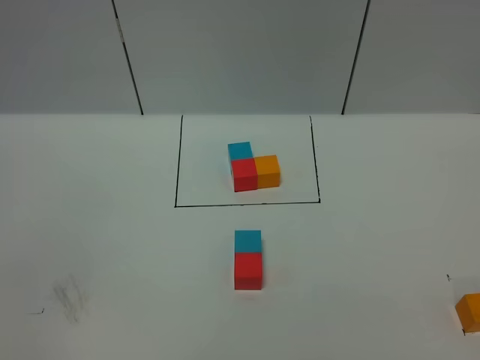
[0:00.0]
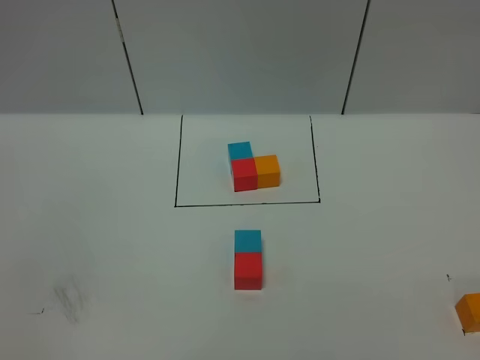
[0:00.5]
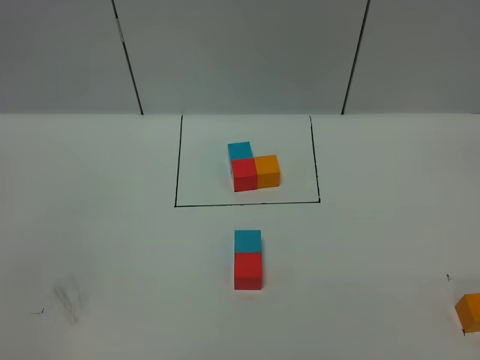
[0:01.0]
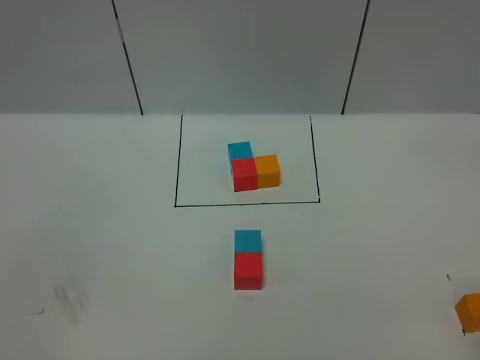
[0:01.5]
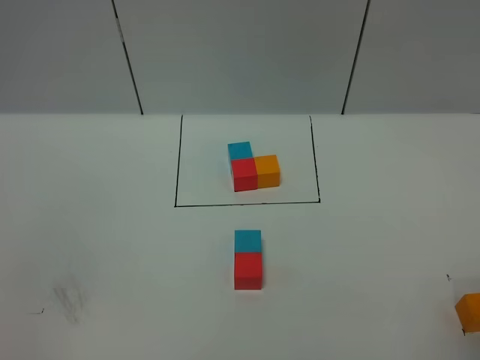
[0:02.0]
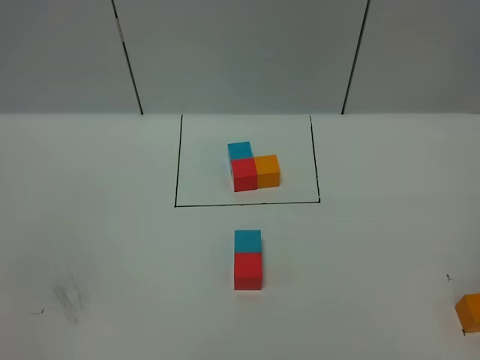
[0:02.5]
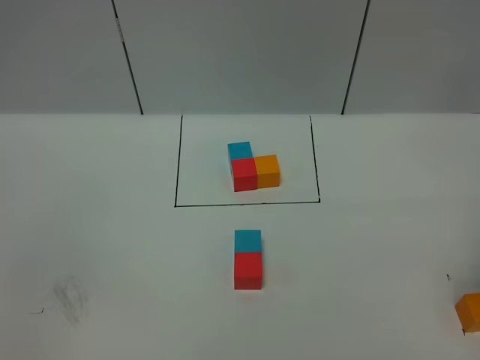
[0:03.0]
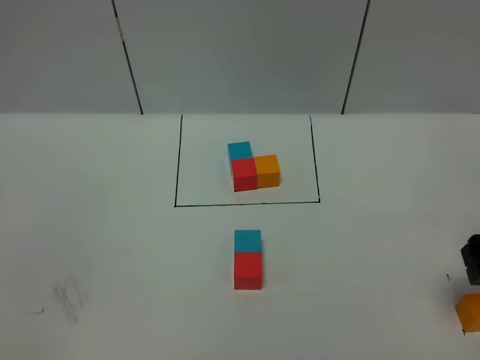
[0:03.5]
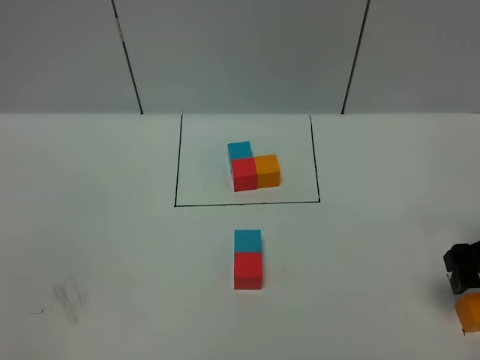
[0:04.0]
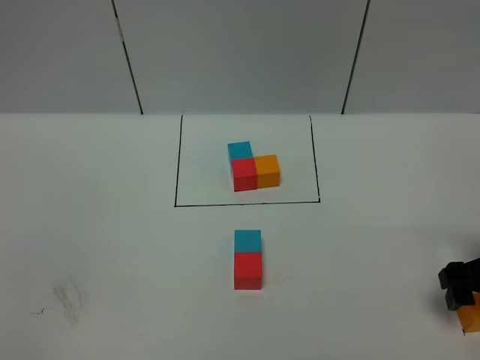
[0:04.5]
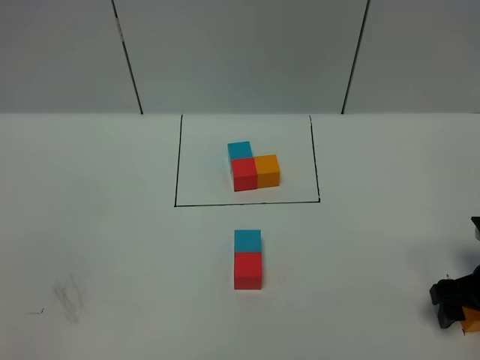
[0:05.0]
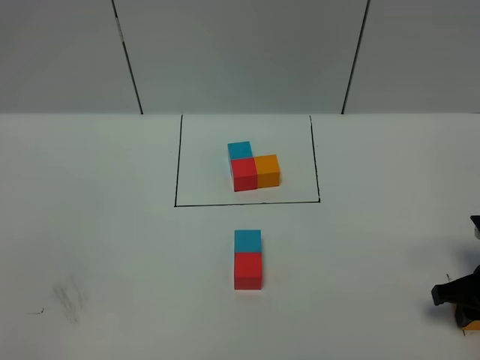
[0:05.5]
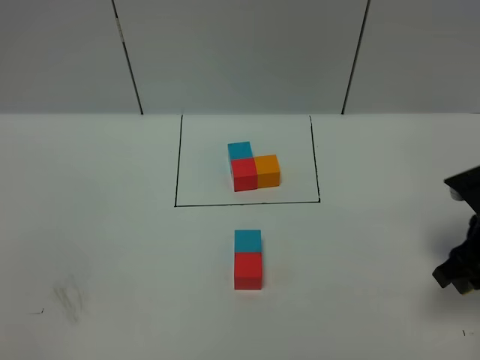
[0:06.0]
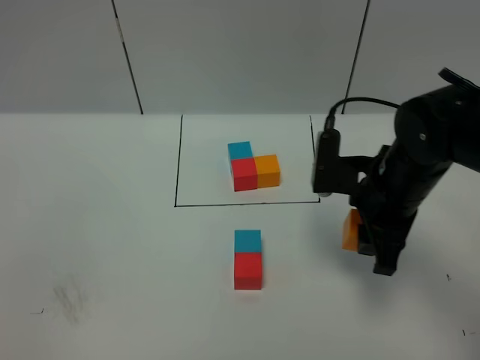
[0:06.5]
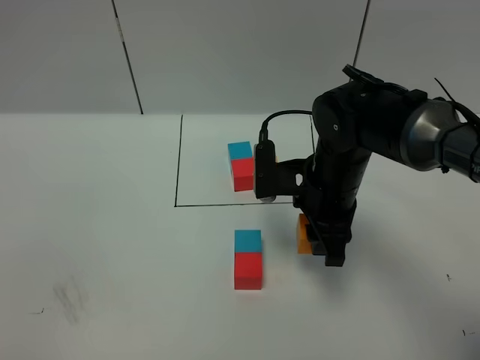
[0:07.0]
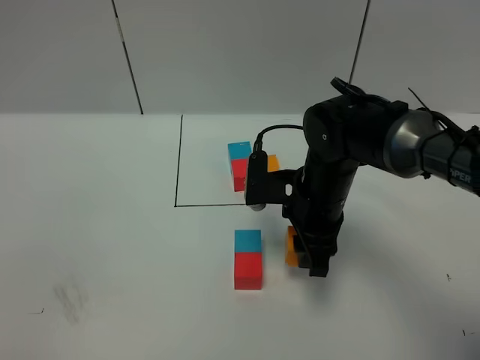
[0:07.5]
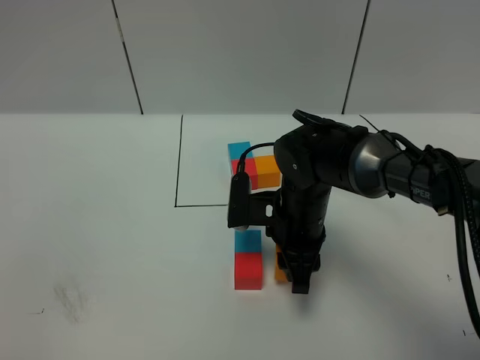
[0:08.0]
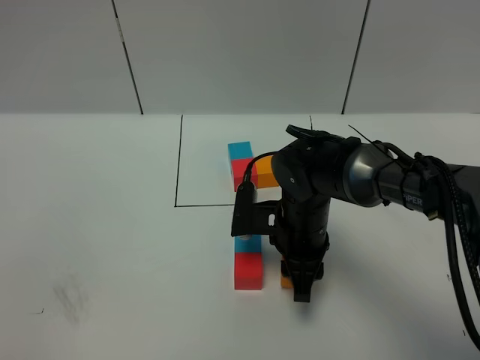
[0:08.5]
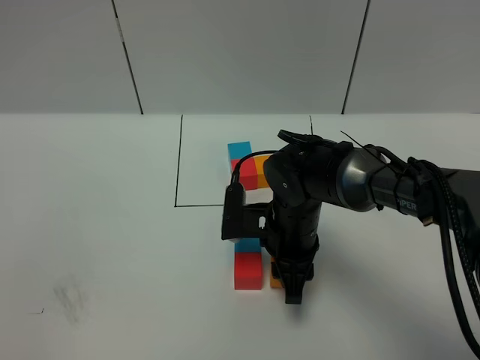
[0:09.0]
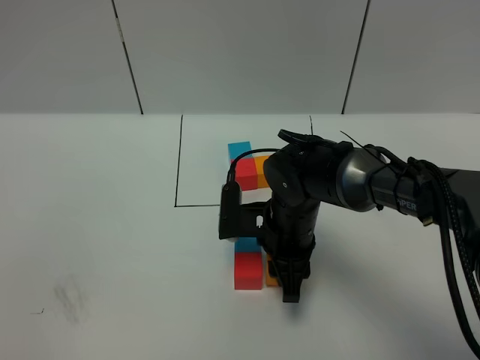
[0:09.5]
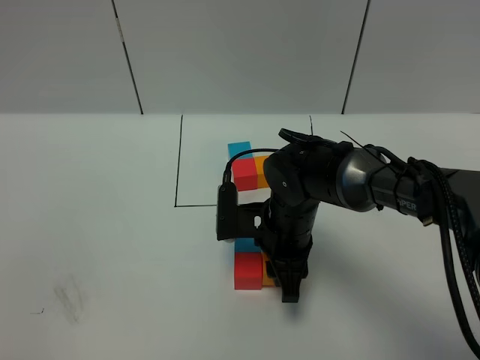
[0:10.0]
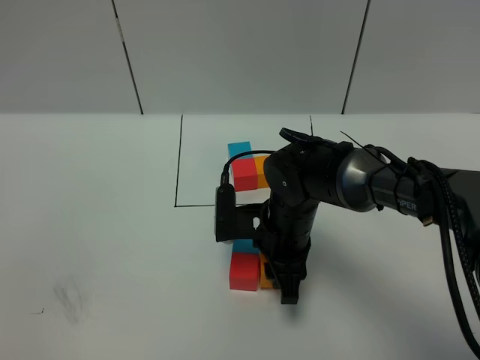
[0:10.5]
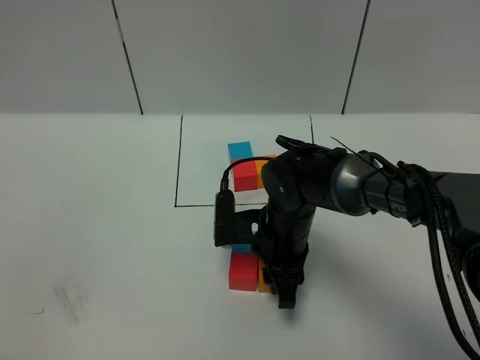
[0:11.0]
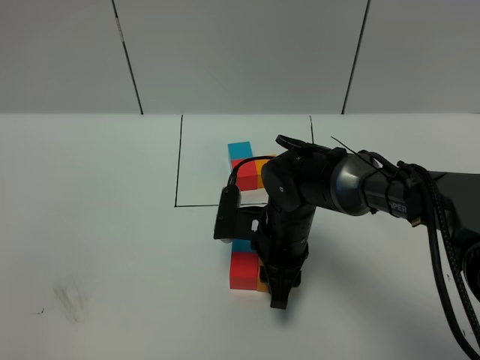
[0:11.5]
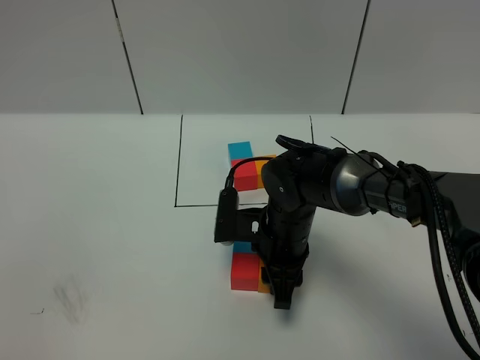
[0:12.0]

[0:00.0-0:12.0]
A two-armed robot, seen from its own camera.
Task of the whole recording: According to the building block template in front, assemble the scattered blocks together.
0:02.0 to 0:04.0: The right gripper moves downward and forward, some 30 cm.
0:04.0 to 0:06.0: The right gripper goes downward and returns, roughly 5 cm each way, and closes up.
0:06.0 to 0:08.0: The right gripper travels to the left by approximately 20 cm.
0:08.0 to 0:12.0: The grippers stay close to where they were, moving slightly.

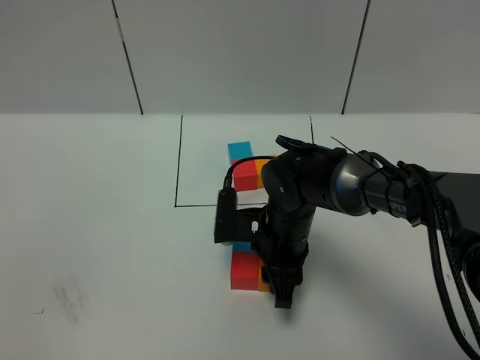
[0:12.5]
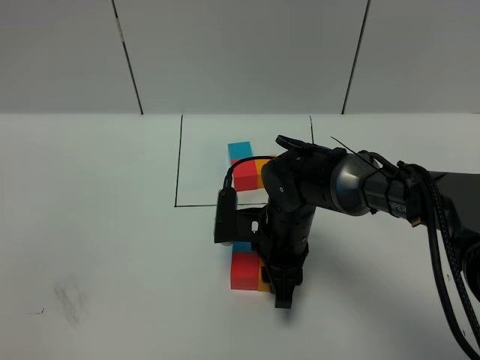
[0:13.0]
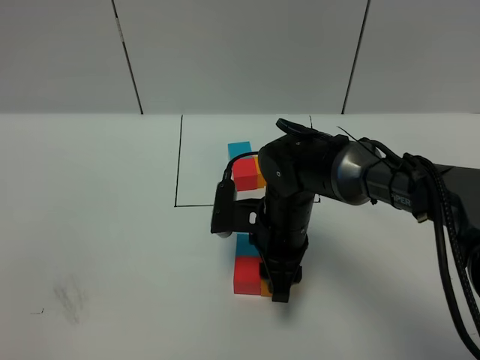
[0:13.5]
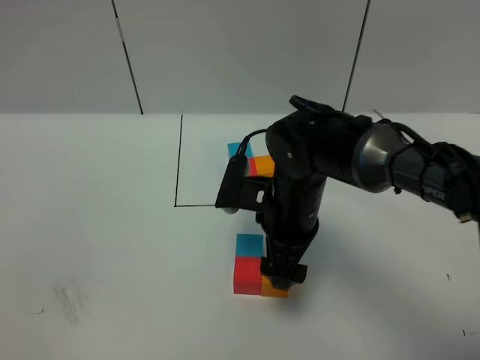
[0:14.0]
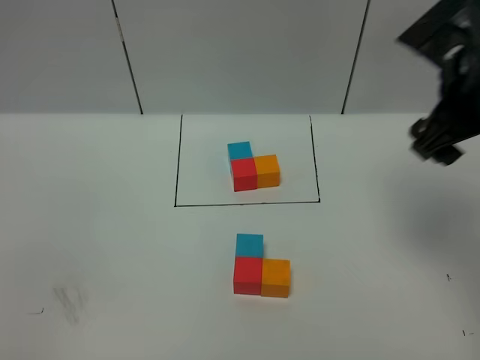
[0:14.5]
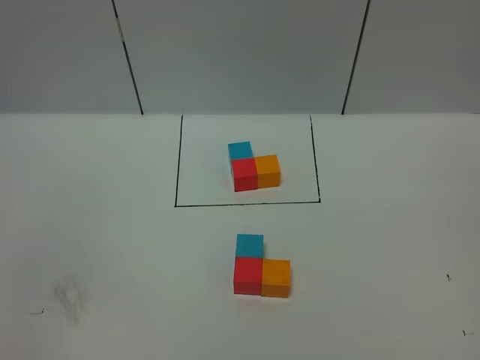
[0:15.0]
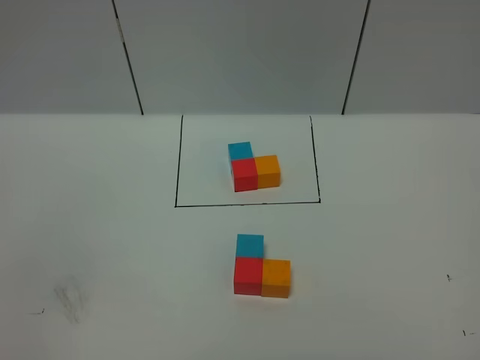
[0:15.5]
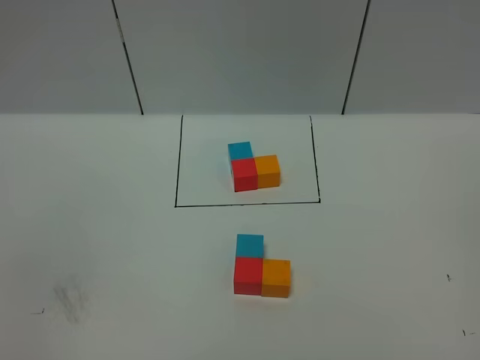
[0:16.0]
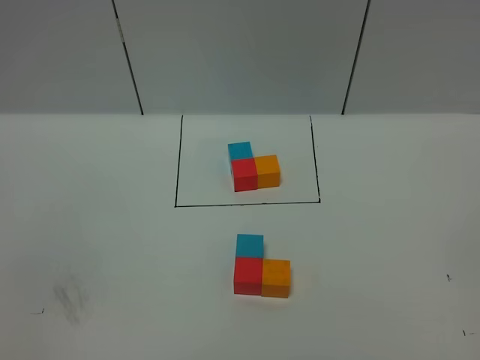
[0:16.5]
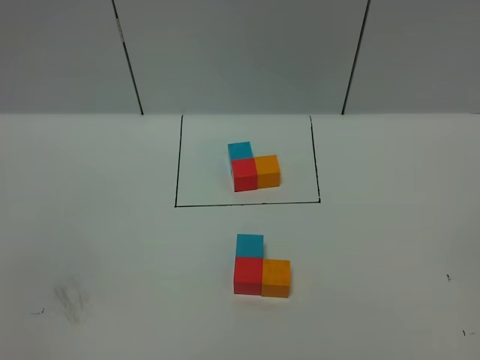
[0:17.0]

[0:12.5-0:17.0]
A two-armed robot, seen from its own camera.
Task of the whole recording: According to the building block template in front, assemble the scattered blocks together.
0:12.5 to 0:14.5: The right gripper goes roughly 30 cm upward and to the right, and opens.
0:14.5 to 0:17.0: The right gripper goes approximately 35 cm backward.

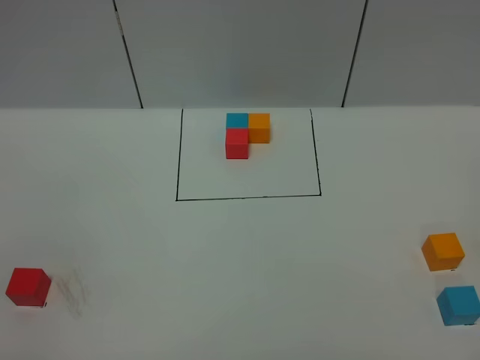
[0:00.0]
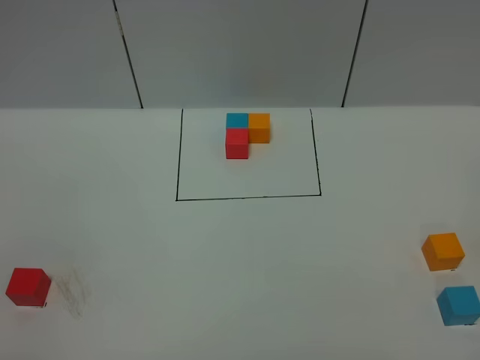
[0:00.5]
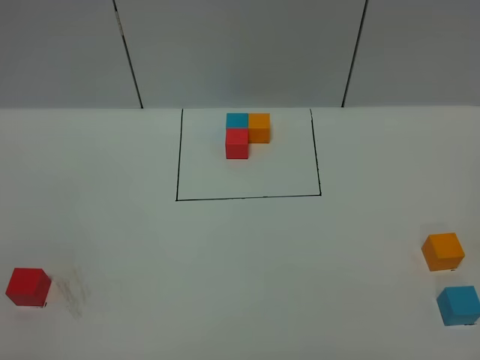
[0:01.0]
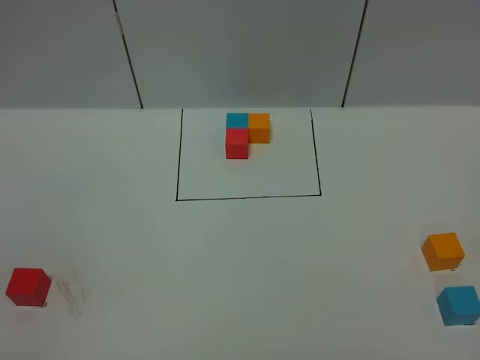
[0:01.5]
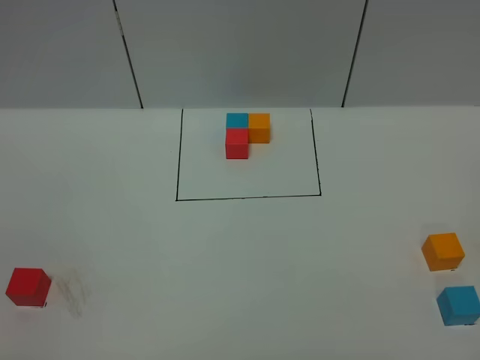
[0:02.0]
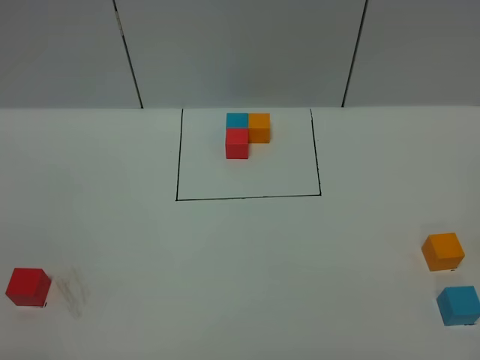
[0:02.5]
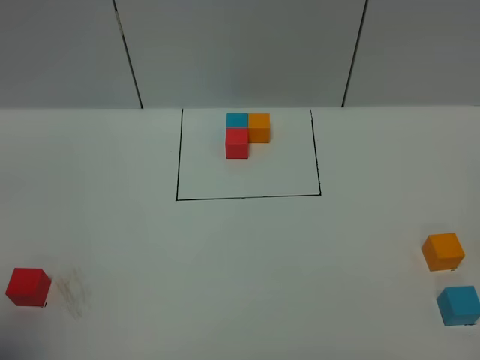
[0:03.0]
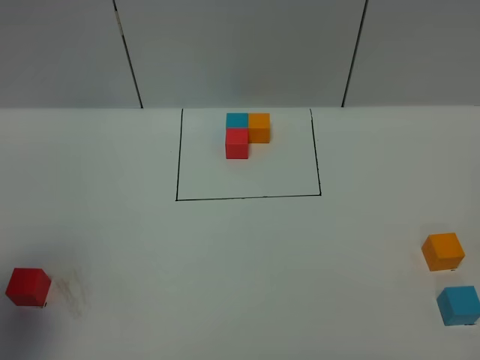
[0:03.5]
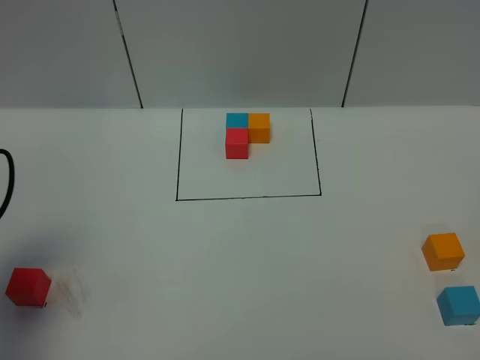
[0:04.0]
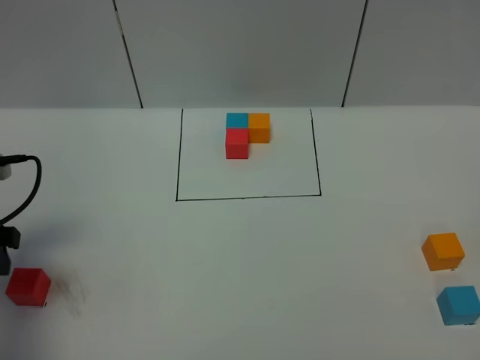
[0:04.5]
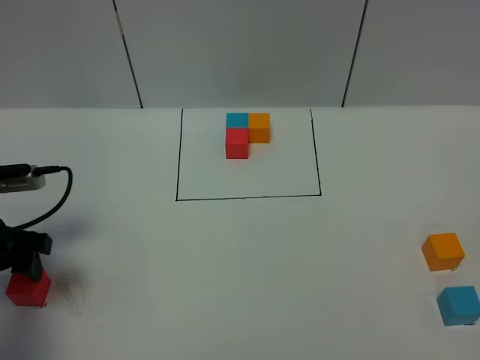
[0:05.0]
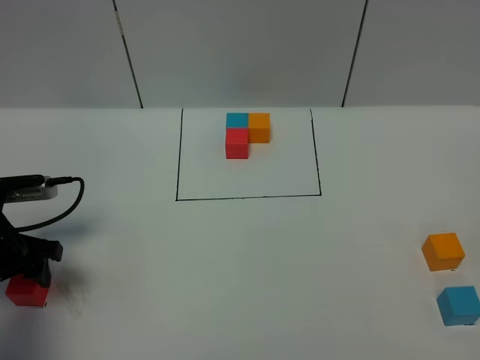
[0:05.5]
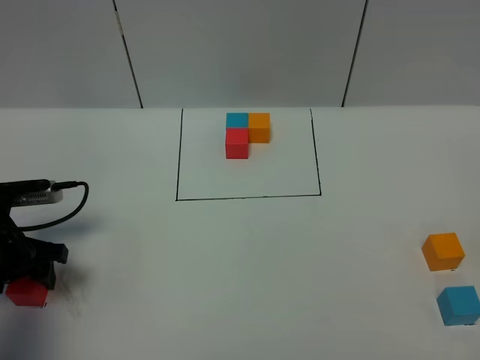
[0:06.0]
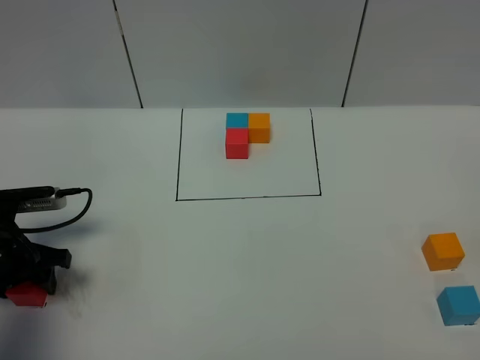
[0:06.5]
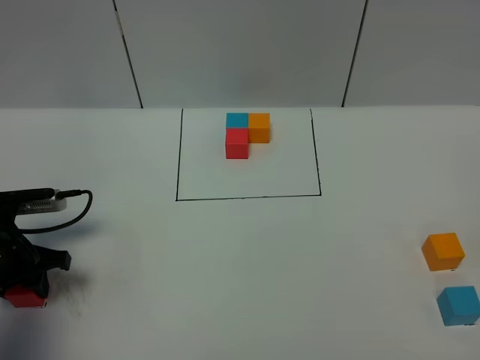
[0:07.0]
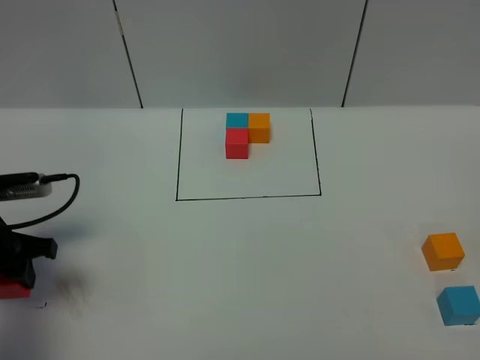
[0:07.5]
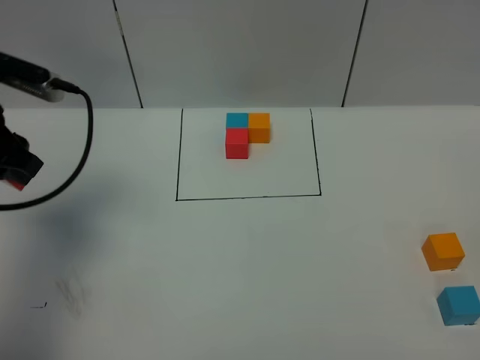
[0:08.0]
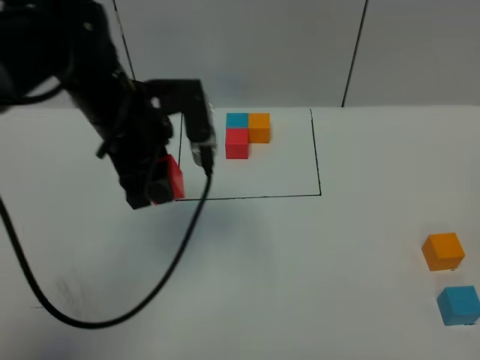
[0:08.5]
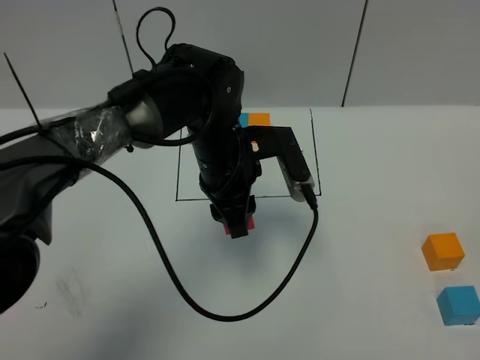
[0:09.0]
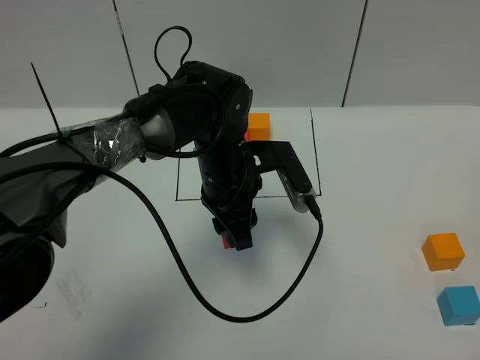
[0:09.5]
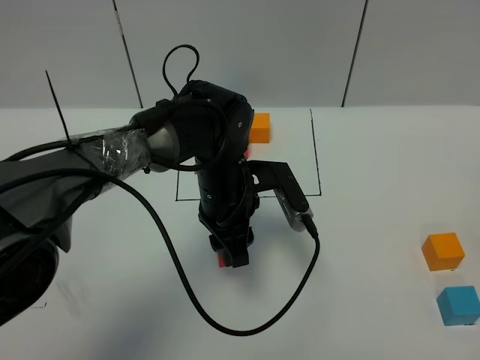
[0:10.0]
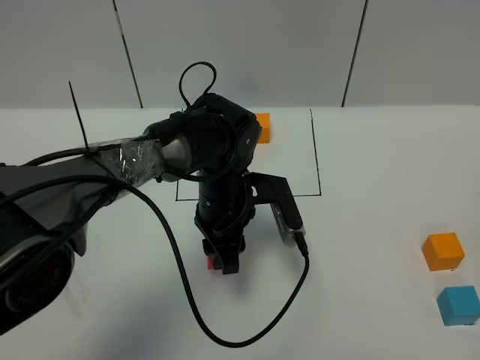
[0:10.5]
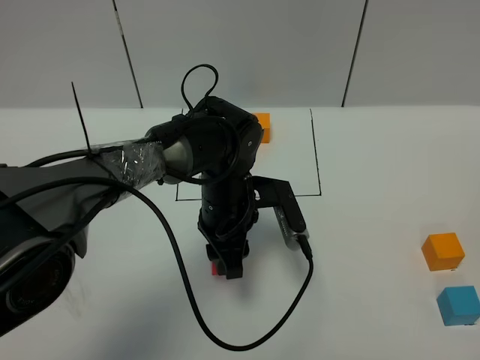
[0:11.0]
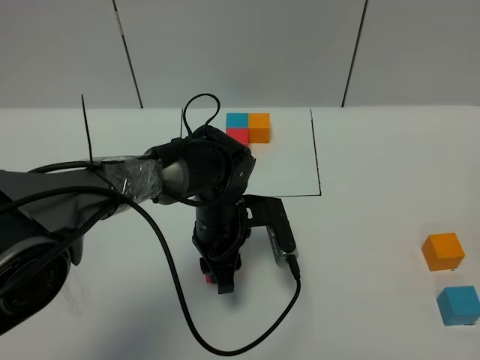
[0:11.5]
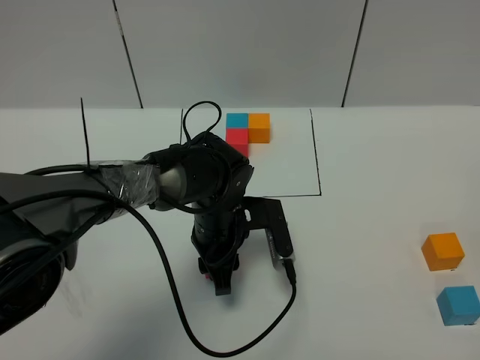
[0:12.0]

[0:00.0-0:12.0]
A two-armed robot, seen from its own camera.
Task of the whole recording: According to the building block template in front, assemble the scattered blocks together.
0:02.0 to 0:04.0: The left gripper heads forward, covering some 25 cm.
0:04.0 to 0:06.0: The left gripper travels downward and forward by some 15 cm.
0:06.0 to 0:08.0: The left gripper travels upward by about 15 cm, and closes its fingers.
0:08.0 to 0:10.0: The left gripper shifts approximately 30 cm to the right and downward.
0:10.0 to 0:12.0: The left gripper goes roughly 5 cm downward.
